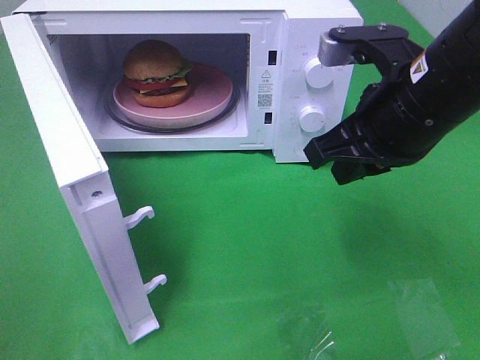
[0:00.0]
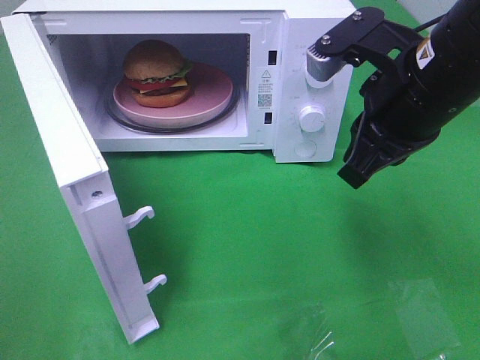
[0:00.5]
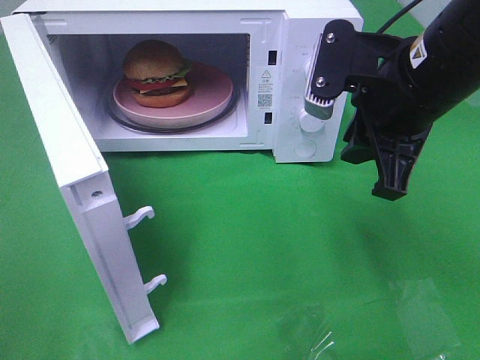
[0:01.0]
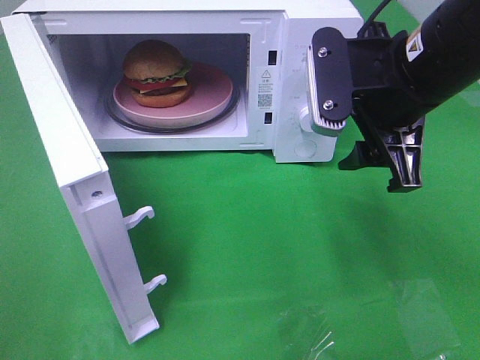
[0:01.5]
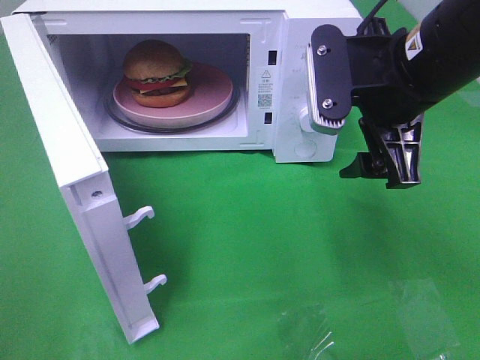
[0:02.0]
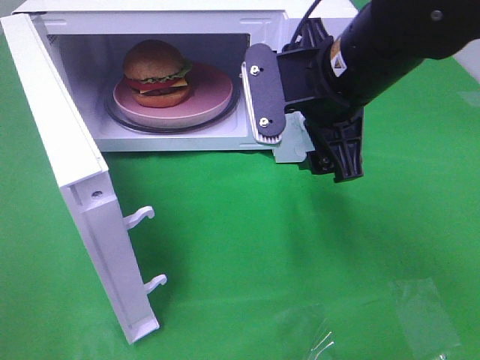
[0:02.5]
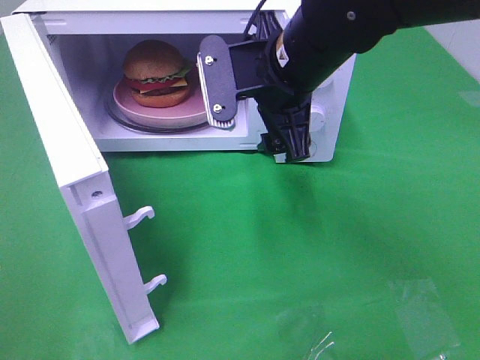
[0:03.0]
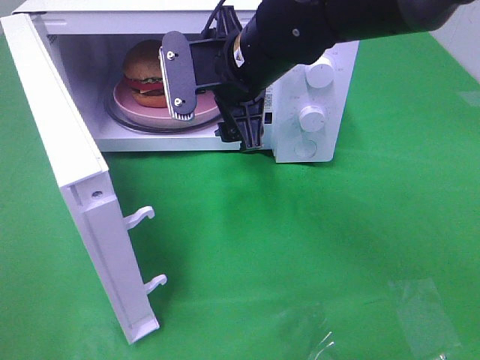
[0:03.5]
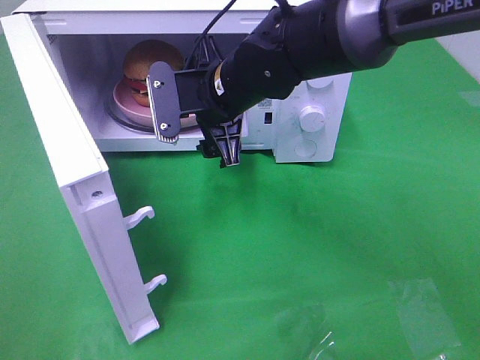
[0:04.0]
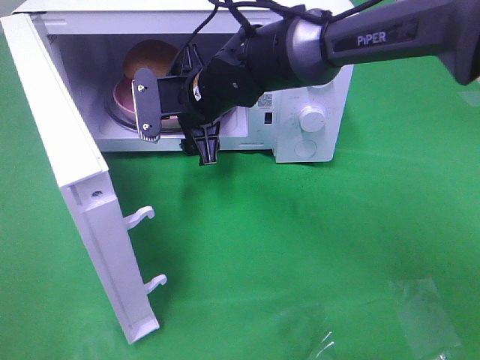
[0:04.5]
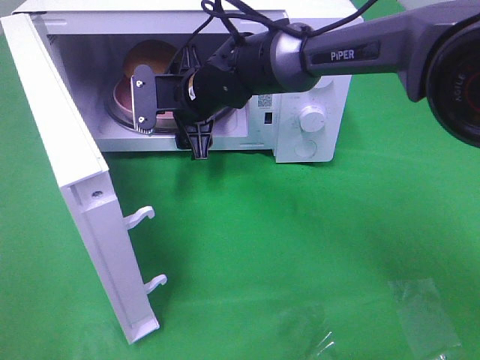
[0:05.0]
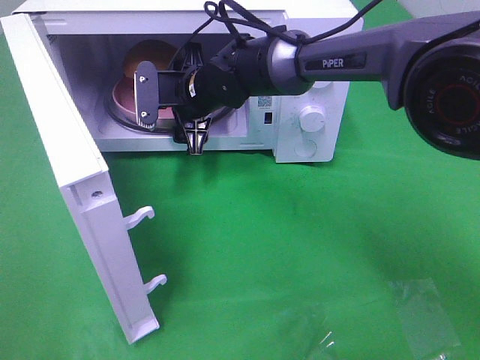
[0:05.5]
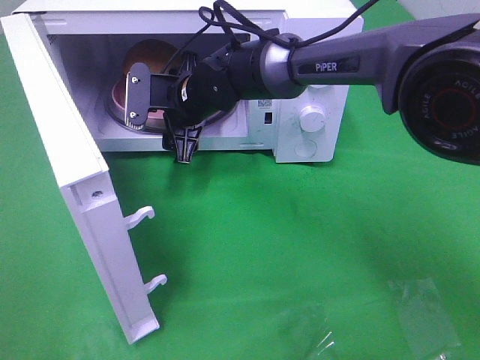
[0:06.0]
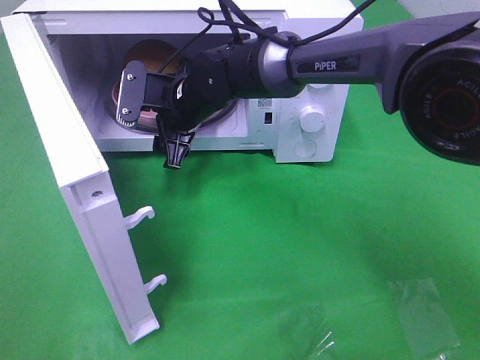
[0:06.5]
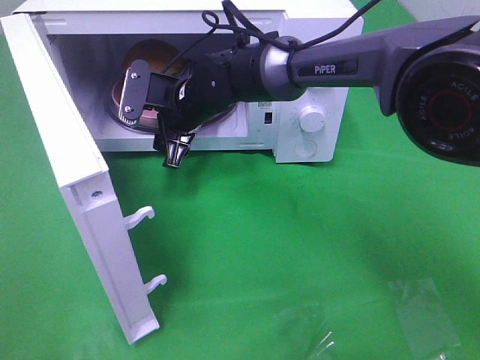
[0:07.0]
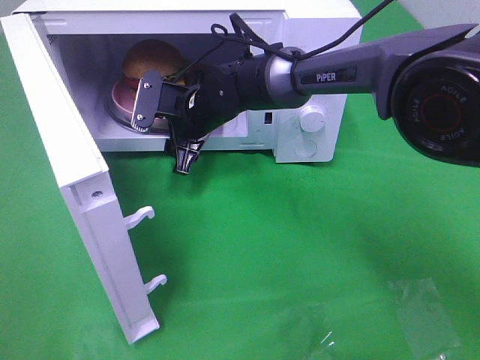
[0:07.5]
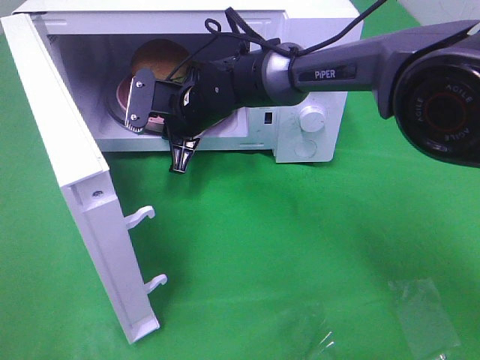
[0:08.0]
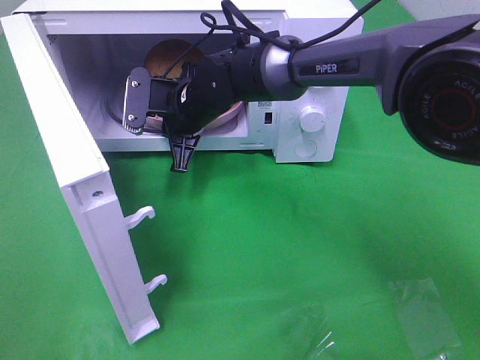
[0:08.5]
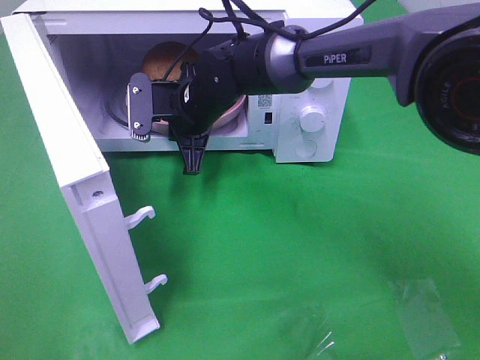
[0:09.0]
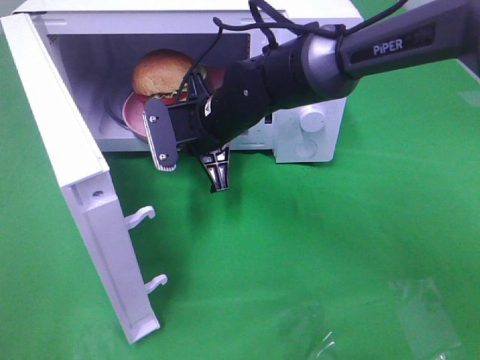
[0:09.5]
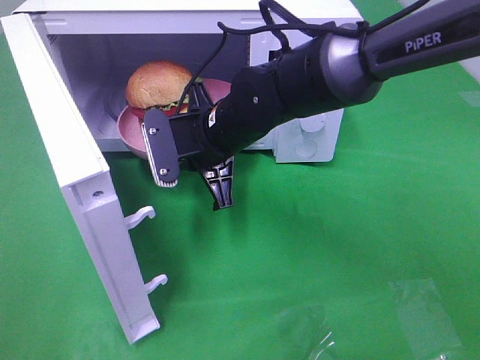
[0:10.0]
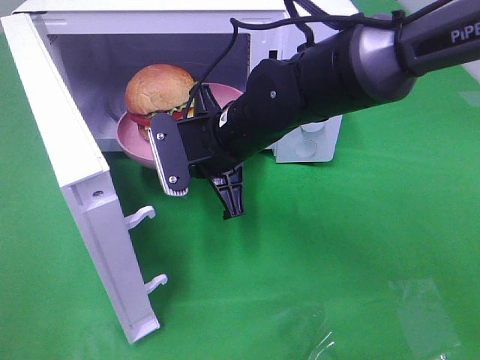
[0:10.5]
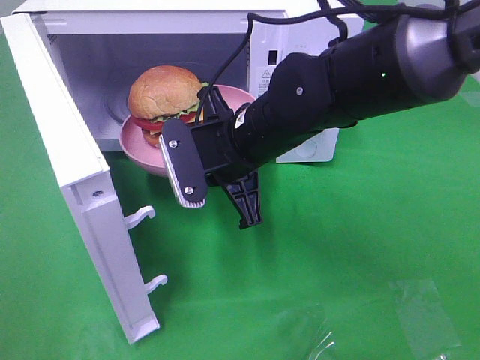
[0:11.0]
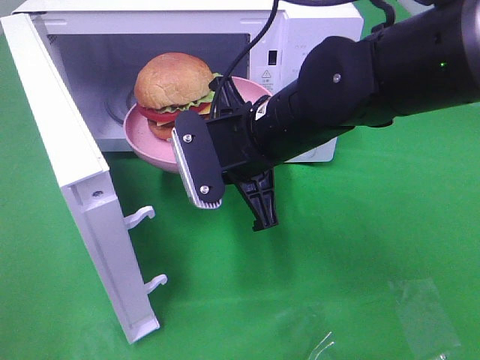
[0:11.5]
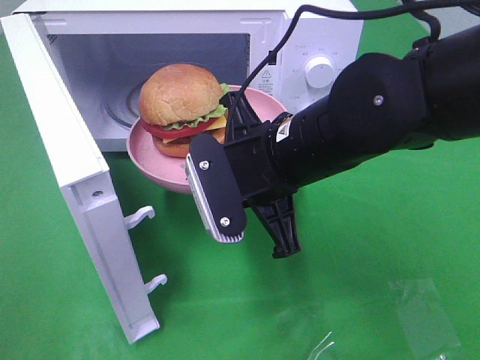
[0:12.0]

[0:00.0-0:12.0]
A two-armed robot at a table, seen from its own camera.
Task of the whole recording: Heat the burger.
Step, 0:00.0 to 0:08.5: Right hand: grab the plate with the hamburger.
0:00.0 to 0:02.0: The right gripper opens.
0:02.0 to 0:04.0: The right gripper shifts about 20 cm to the left, forward and downward.
0:04.0 to 0:06.0: The right gripper travels forward by roughly 5 cm.
0:06.0 to 0:08.0: The right gripper closes its fingers.
0:08.0 to 0:10.0: The right gripper goes approximately 10 cm backward.
0:10.0 to 0:12.0: The right gripper goes approximately 10 cm backward and to the right.

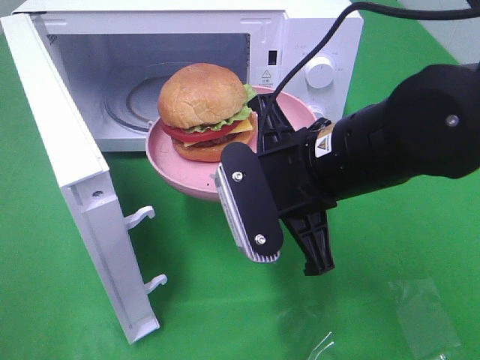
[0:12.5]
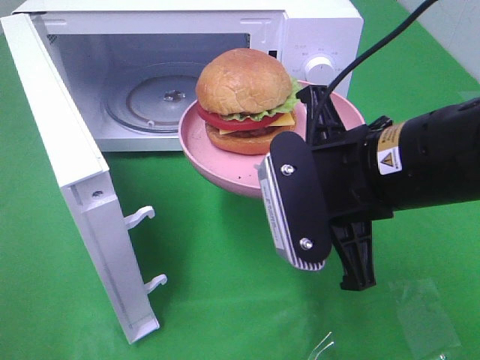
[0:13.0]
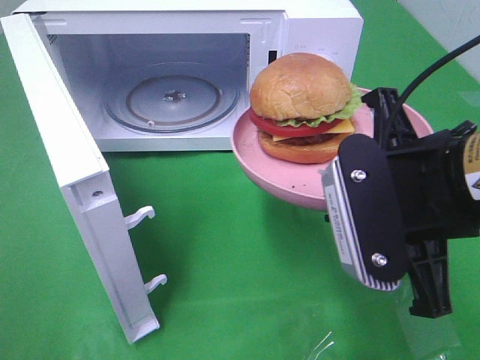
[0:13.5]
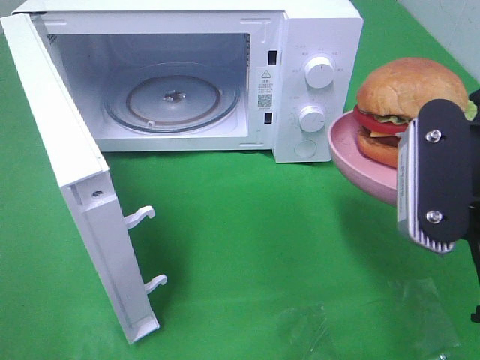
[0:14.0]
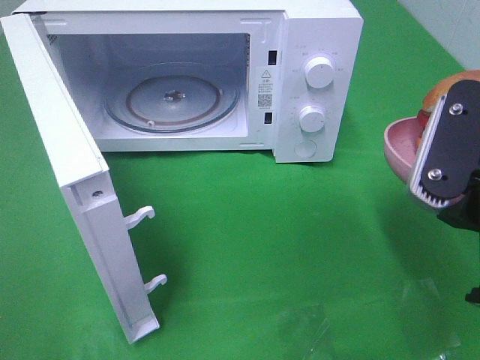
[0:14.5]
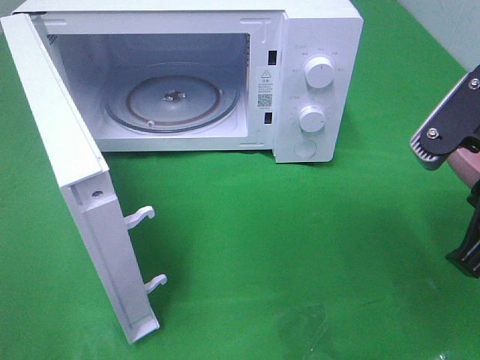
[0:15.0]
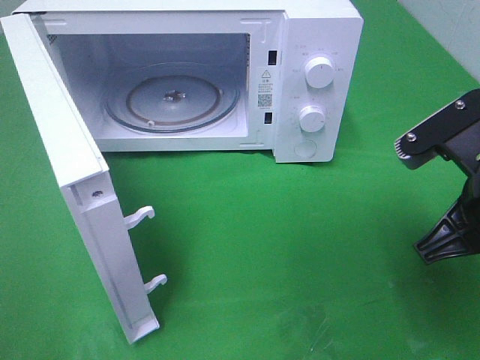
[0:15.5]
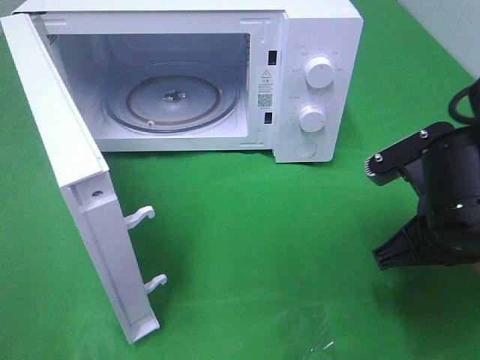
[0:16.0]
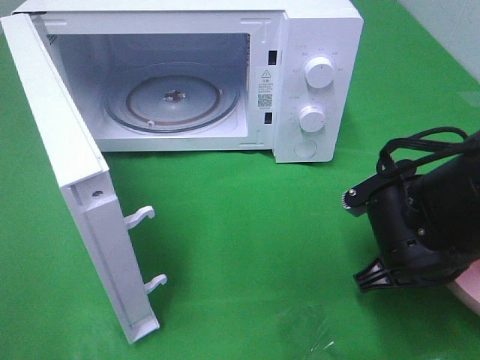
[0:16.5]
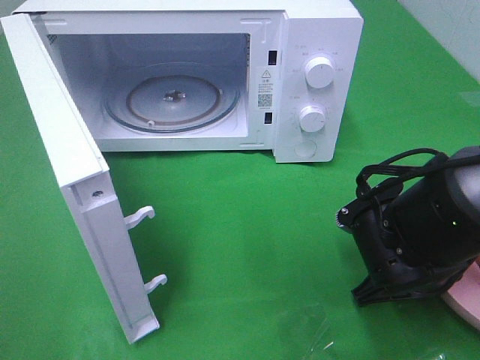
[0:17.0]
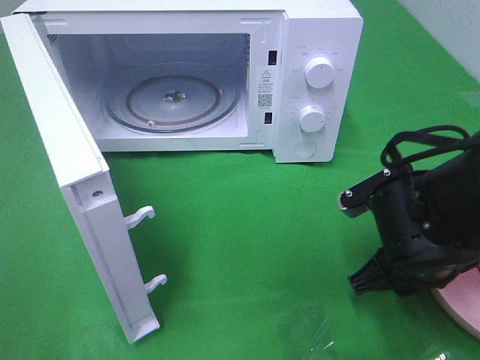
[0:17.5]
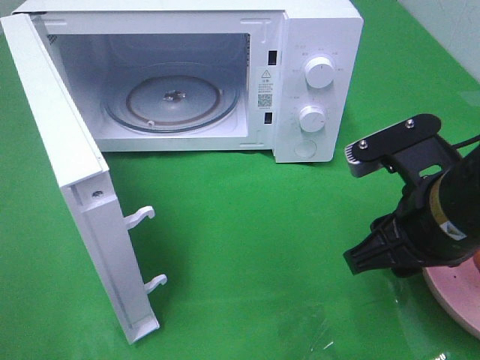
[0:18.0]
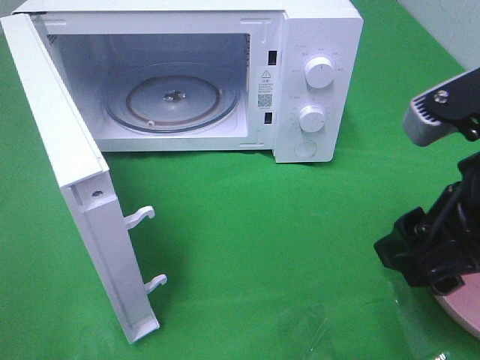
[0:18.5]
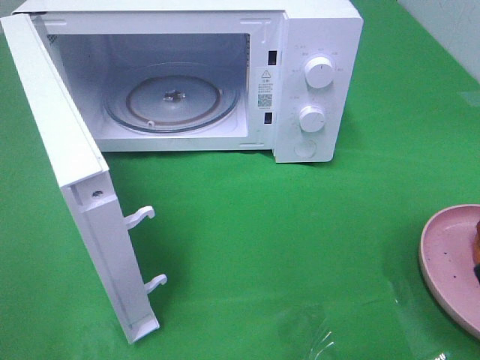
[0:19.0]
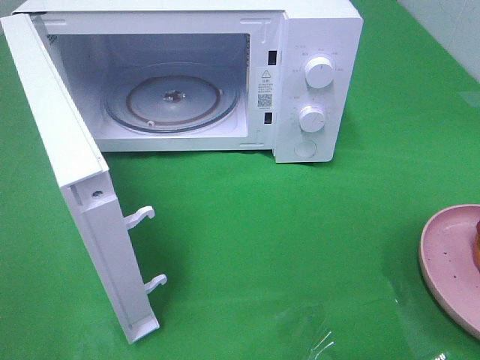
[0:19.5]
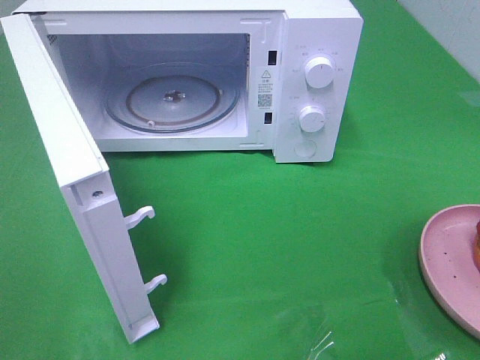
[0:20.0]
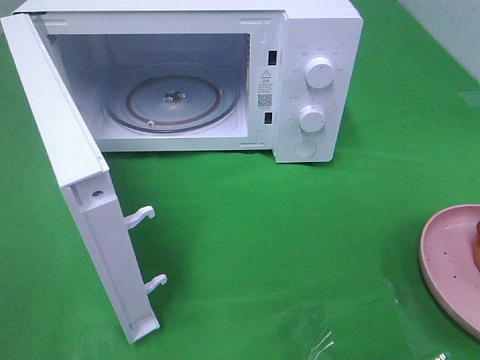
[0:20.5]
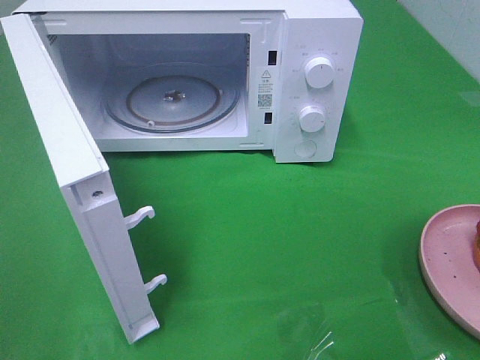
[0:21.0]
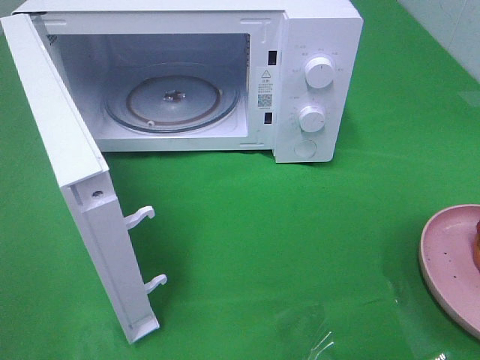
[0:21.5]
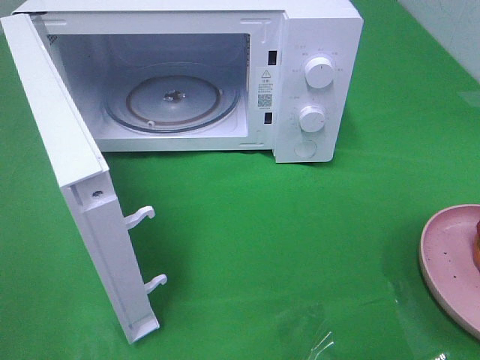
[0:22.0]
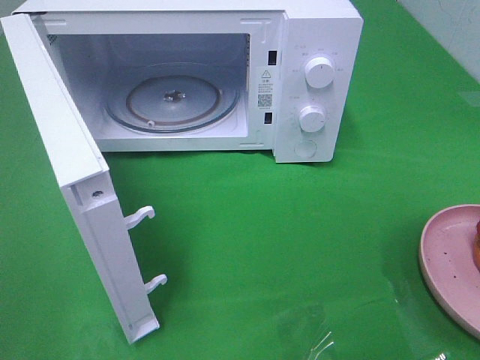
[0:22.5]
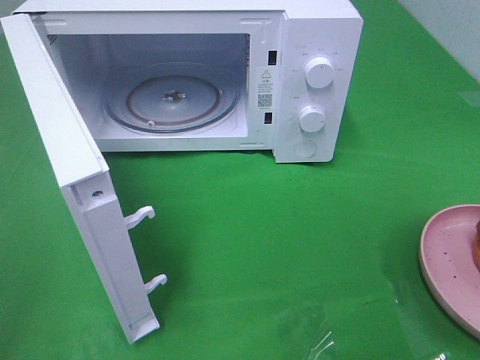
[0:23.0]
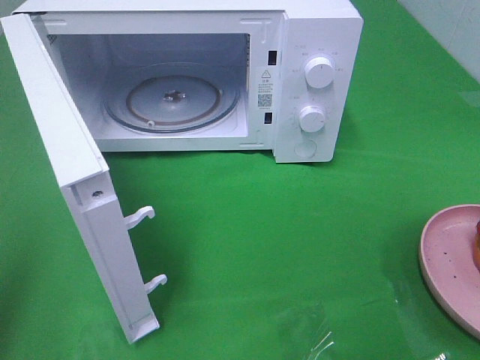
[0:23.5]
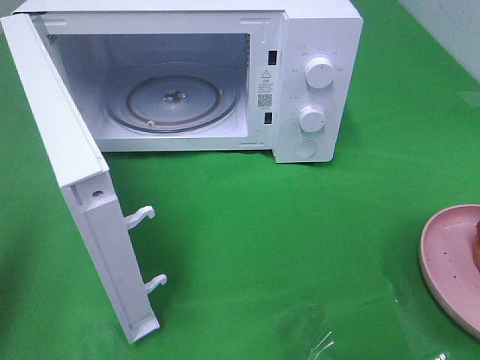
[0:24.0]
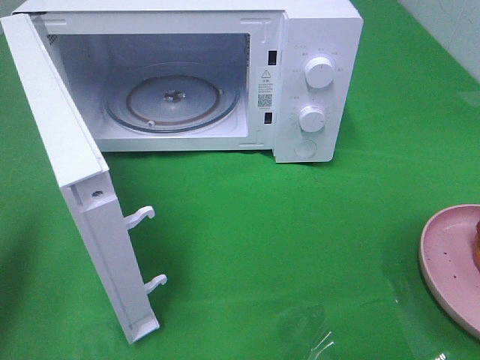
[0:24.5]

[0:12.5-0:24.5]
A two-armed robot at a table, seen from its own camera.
Task of the whole recording: Heat the burger.
Step, 0:12.5 to 0:18.0: Right hand: place the plate on the table.
0:12.5 to 0:14.5: The right gripper shifts approximately 15 cm to the right, backward and upward.
0:14.5 to 0:16.5: The right gripper is displaced downward by approximately 15 cm.
0:16.5 to 0:18.5: The right gripper shifts roughly 15 cm upward and backward, and opens.
0:18.5 to 0:20.5: The right gripper is displaced backward and to the right by approximately 20 cm.
0:20.5 to 0:22.5: Neither gripper changes place.
0:22.5 to 0:24.5: The left gripper goes some 15 cm forward, and closes up.

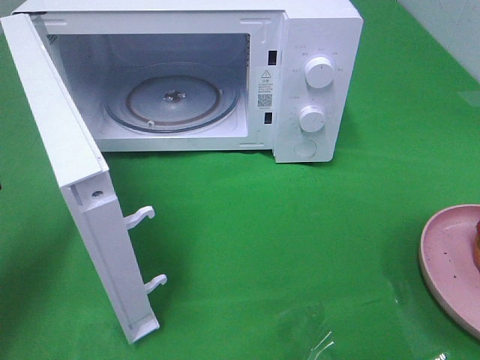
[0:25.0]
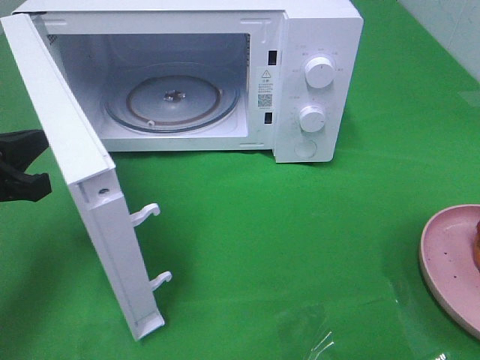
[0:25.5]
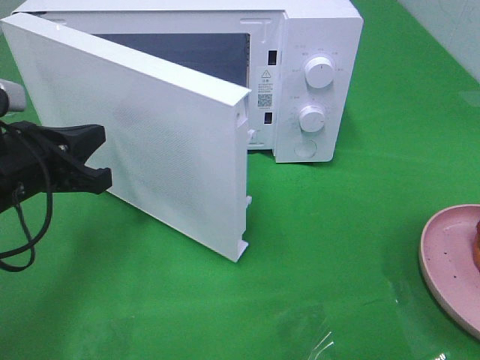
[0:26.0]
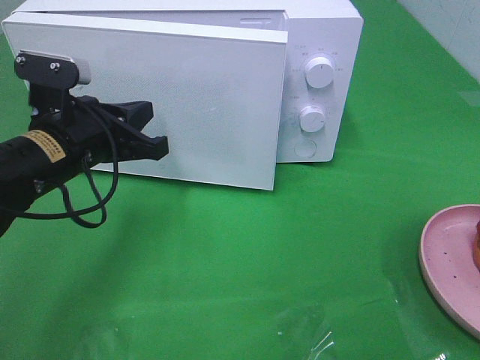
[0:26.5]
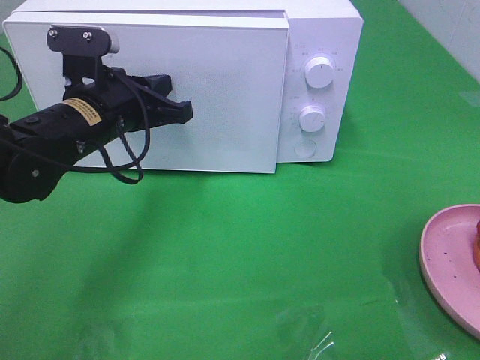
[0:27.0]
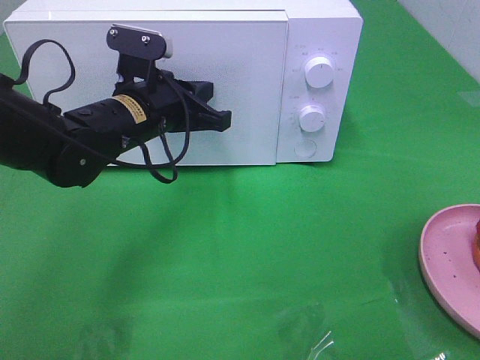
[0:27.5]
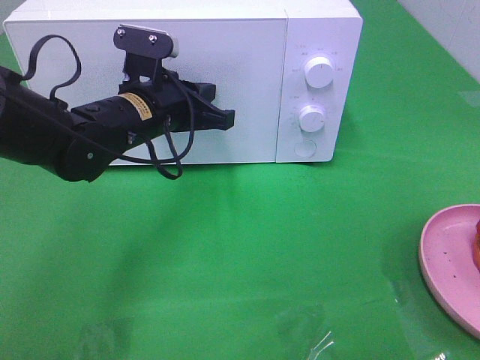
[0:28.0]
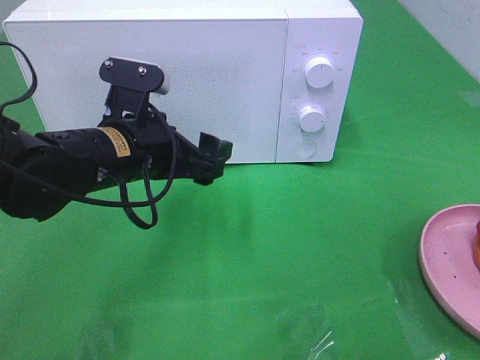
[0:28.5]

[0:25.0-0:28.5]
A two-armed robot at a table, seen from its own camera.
Task of the whole recording: Heat the burger.
Step, 0:25.0 to 0:28.0: Left hand: close the microwave door.
0:25.0 to 0:27.0: The left gripper travels to the right and forward by about 20 cm.
0:27.0 to 0:28.5: The left gripper ends up roughly 5 cm from where it was, and opens up.
